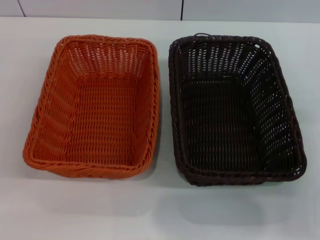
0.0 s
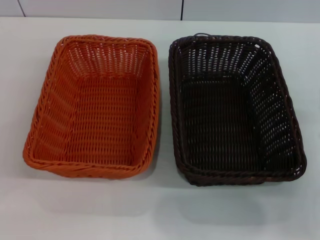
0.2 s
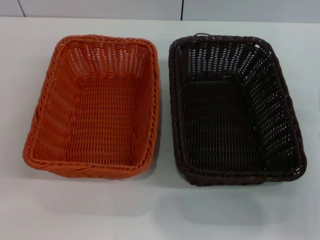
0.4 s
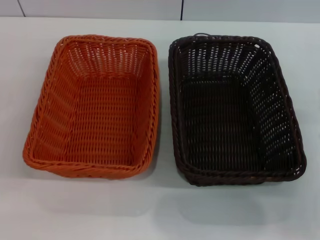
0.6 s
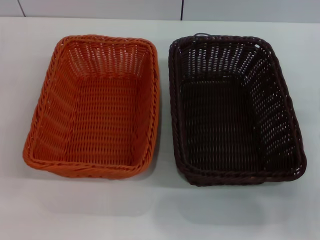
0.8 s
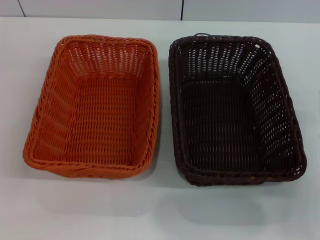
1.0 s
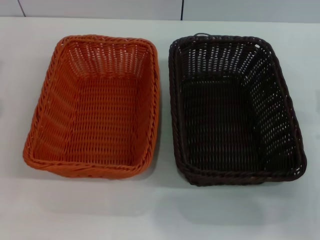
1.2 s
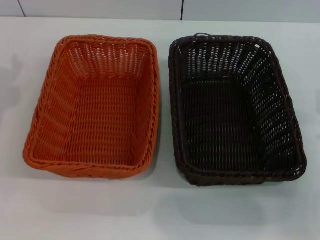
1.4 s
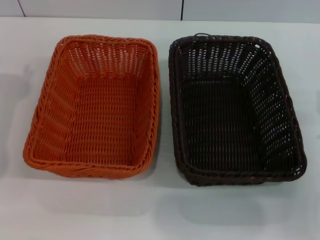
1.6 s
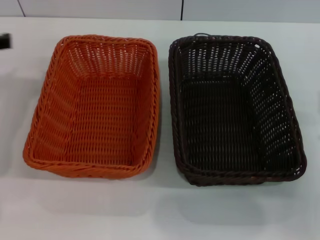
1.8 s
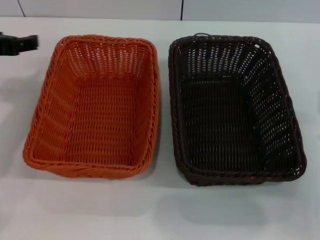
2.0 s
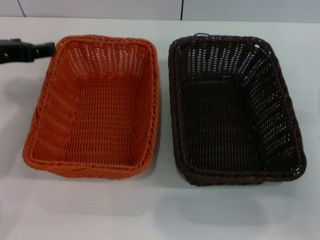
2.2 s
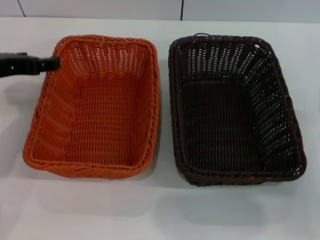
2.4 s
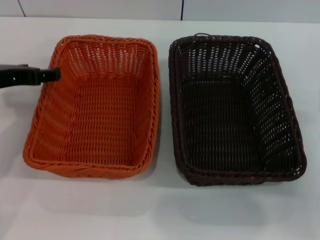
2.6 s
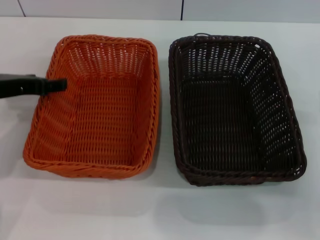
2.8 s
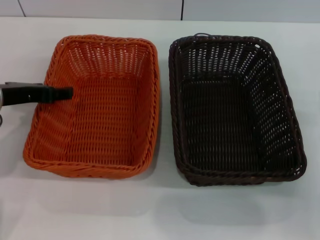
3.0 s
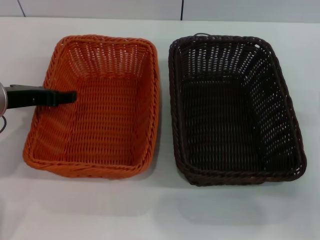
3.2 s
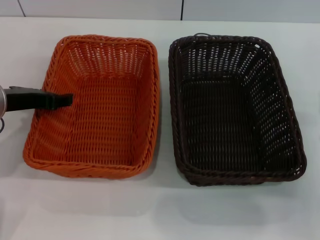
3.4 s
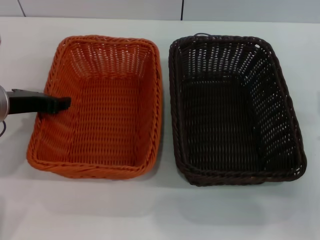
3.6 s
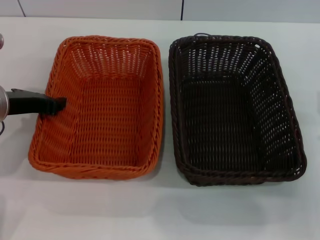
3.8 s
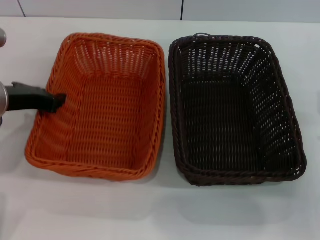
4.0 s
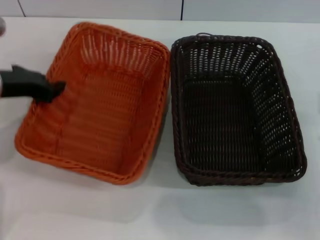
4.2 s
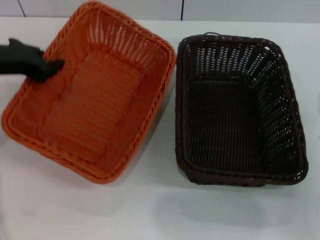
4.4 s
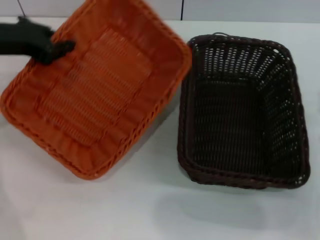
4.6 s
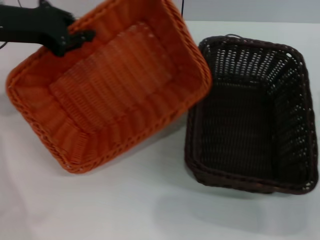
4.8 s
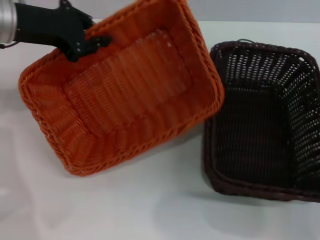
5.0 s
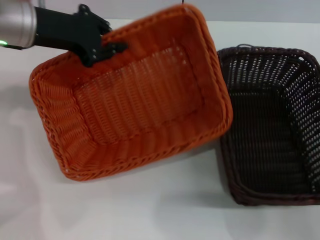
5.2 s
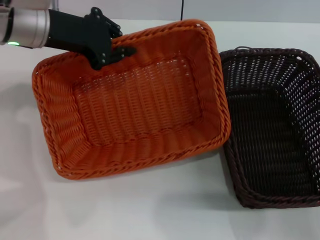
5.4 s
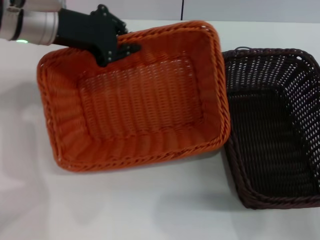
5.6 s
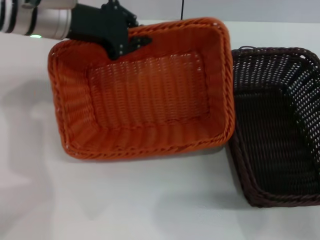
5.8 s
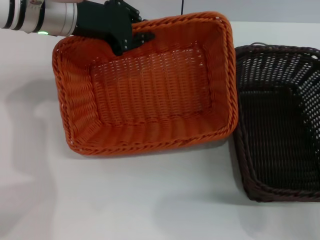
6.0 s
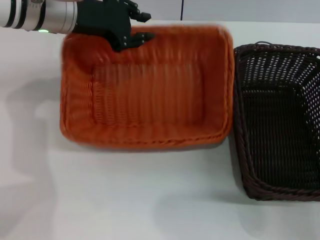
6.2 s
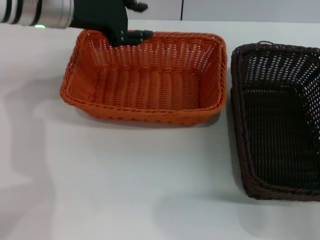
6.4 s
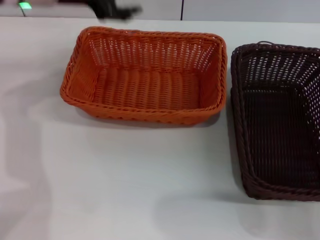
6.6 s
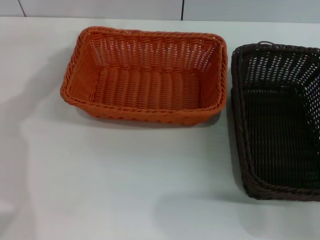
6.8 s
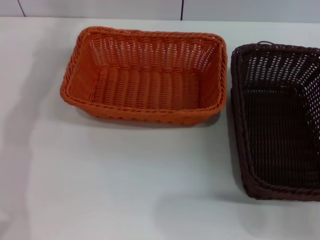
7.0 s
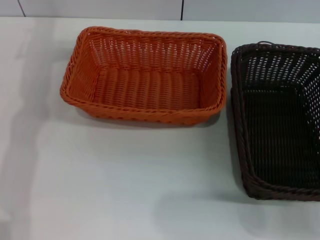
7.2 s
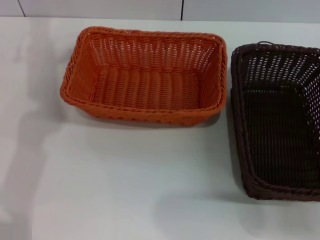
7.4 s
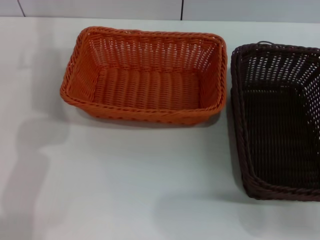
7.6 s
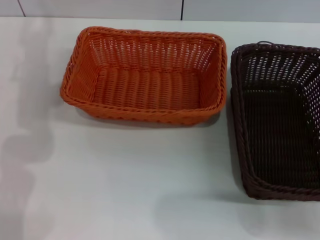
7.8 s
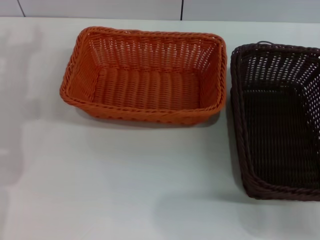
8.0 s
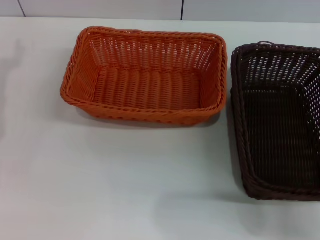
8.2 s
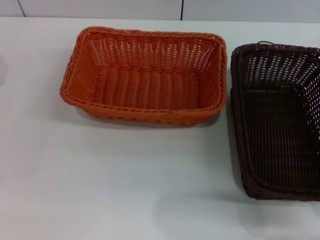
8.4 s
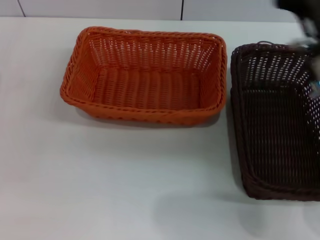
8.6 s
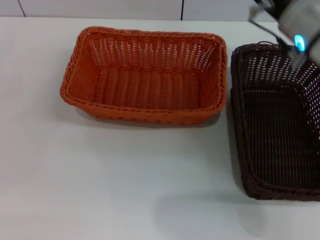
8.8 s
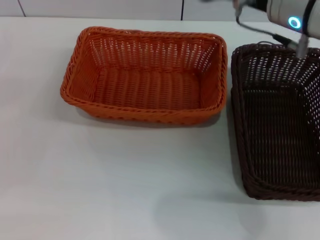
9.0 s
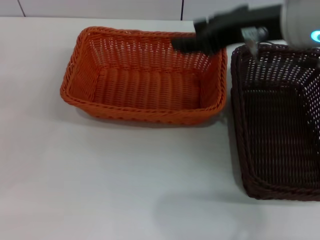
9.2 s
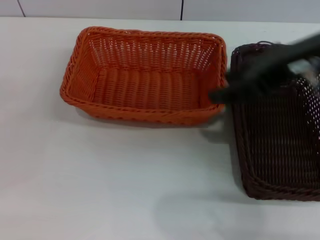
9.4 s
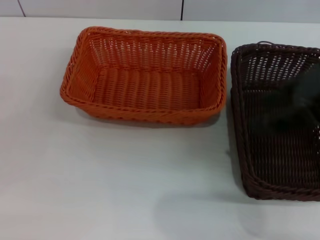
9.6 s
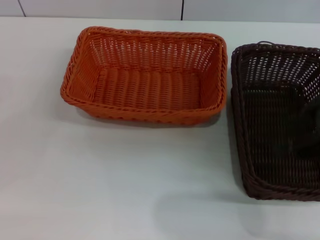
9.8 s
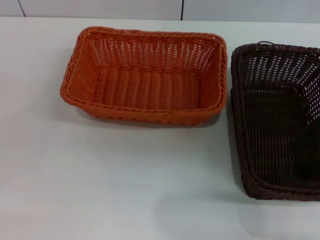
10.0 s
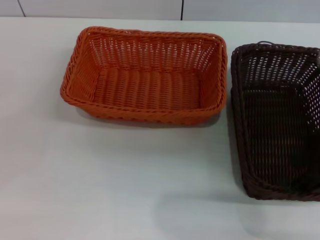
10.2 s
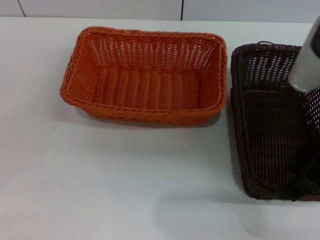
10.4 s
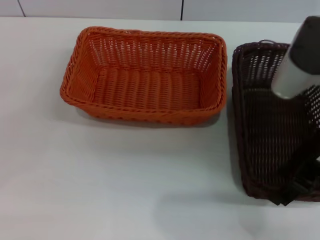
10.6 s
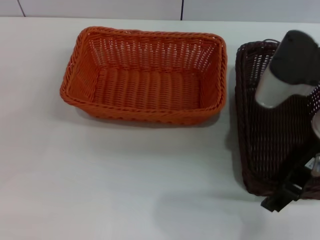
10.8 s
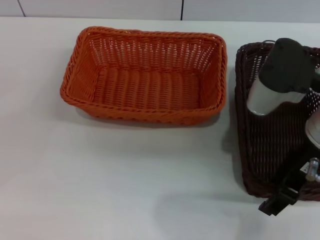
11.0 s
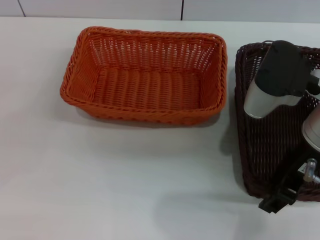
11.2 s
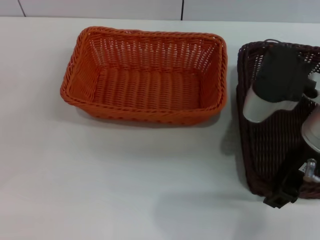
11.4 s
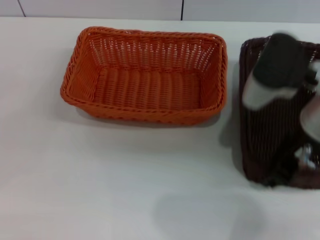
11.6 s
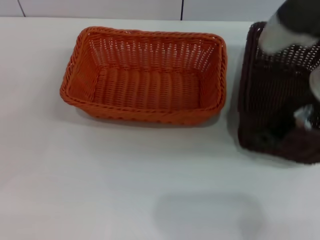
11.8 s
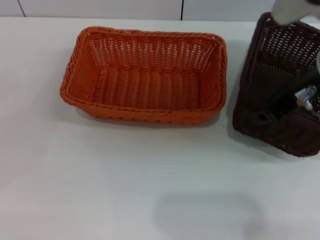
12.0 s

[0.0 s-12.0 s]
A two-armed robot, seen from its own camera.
Step, 0.0 to 4.4 s: Pick up the light basket with the left gripper.
Step, 4.6 to 6.2 s: Place the light basket in the center of view with the left gripper.
1.6 to 3.0 s: The left gripper heads downward and to the right, covering roughly 10 cm.
3.0 to 4.4 s: The left gripper ends up roughly 5 cm from where it was, and closes up.
4.4 to 6.0 s: The left gripper moves to the right and forward, roughly 10 cm.
6.0 to 7.6 s: The left gripper is displaced to the left and upward by about 10 cm, and opens.
7.6 to 9.0 s: The left gripper is displaced downward, backward and to the left by roughly 25 cm. The right gripper heads upward, to the left and forward, covering about 25 cm.
9.0 to 10.4 s: The right gripper travels backward and to the right by roughly 10 cm.
10.4 to 12.0 s: The right gripper closes up.

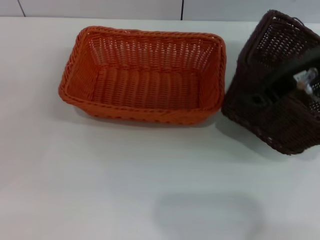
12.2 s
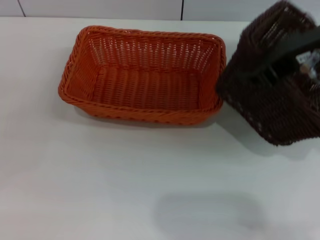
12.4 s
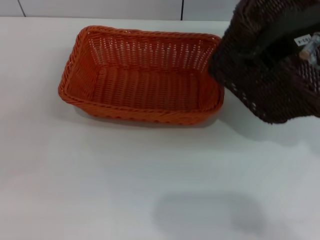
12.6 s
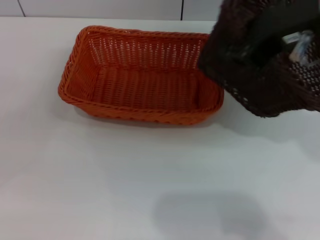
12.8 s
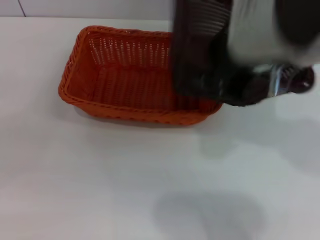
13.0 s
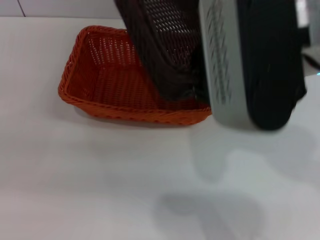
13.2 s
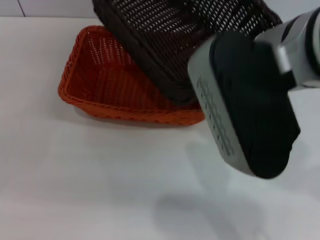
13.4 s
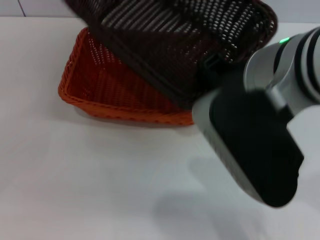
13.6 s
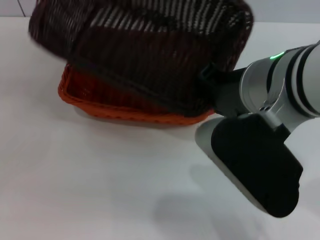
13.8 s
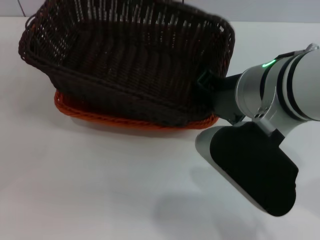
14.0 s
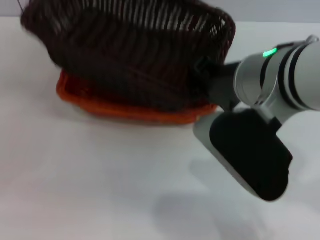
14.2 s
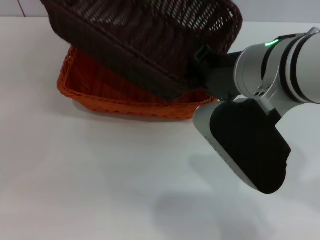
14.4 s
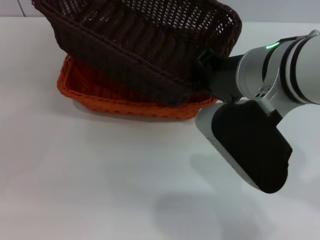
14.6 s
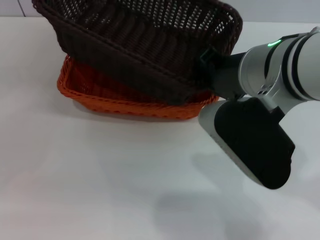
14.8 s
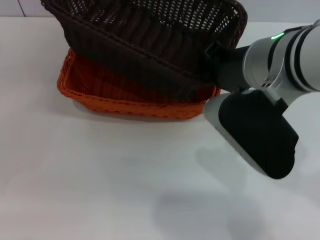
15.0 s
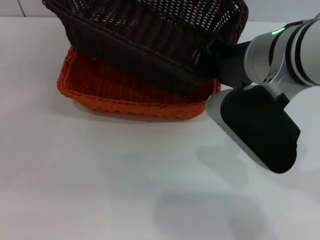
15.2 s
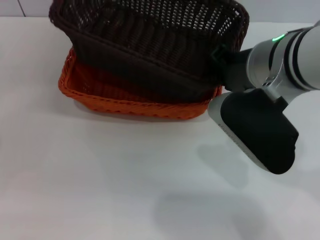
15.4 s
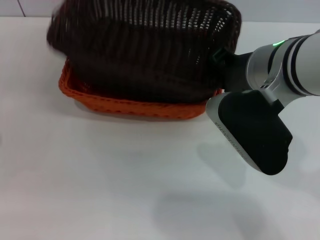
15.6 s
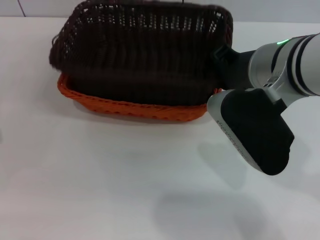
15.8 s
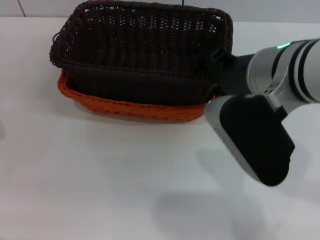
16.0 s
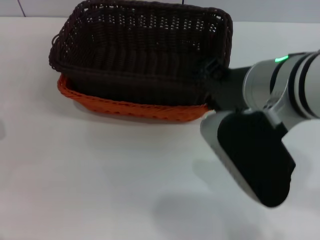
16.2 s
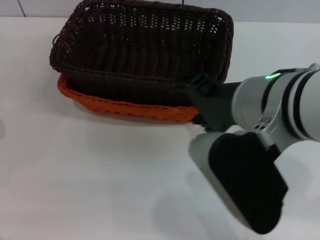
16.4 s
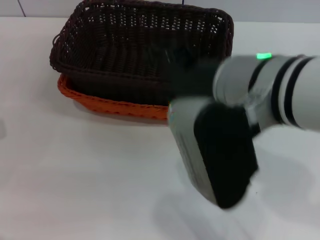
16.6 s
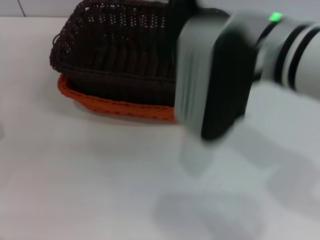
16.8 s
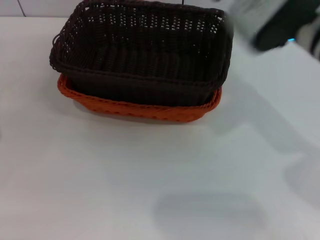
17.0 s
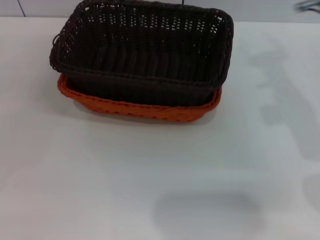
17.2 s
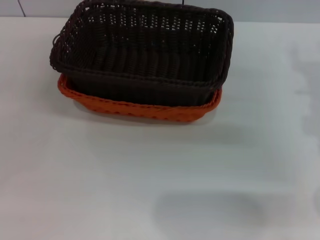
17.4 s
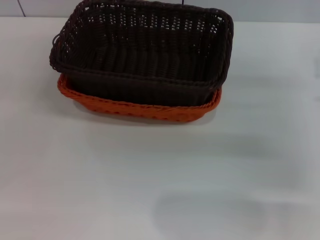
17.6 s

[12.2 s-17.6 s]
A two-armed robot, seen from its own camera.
Step, 12.2 to 16.2 s: Place the dark basket on the light basket with the right gripper.
12.2 to 13.6 s: The right gripper heads to the left and backward, covering about 10 cm.
13.6 to 15.0 s: The grippers move only a little.
15.0 to 16.2 s: The right gripper opens up.
16.2 to 17.6 s: The right gripper travels to the right and downward by some 20 cm, and opens up.
